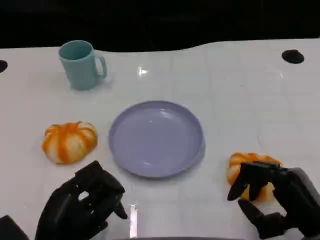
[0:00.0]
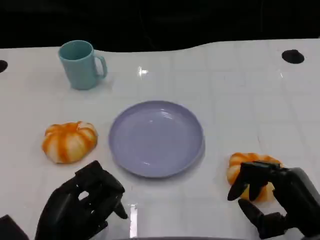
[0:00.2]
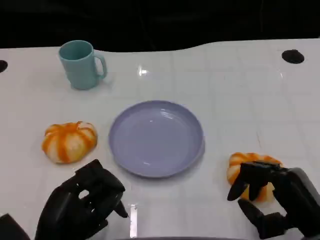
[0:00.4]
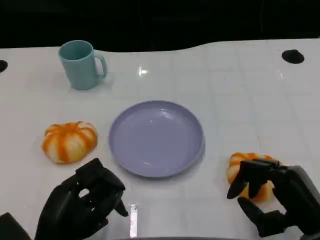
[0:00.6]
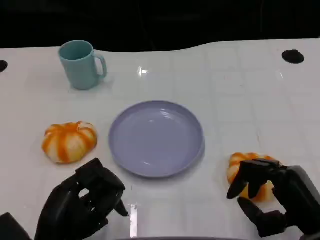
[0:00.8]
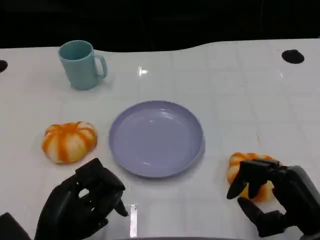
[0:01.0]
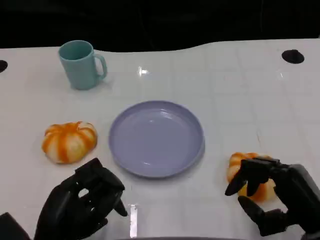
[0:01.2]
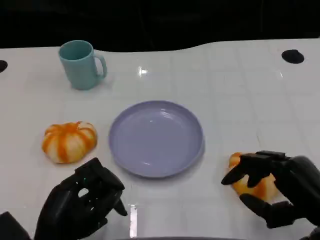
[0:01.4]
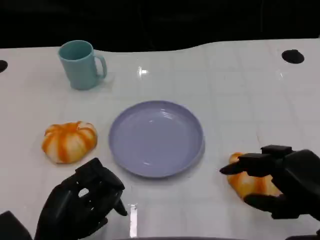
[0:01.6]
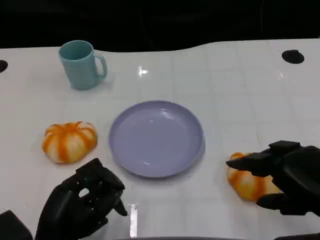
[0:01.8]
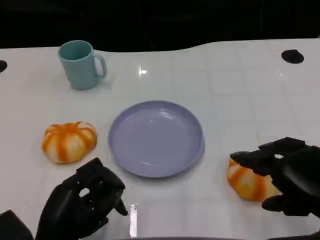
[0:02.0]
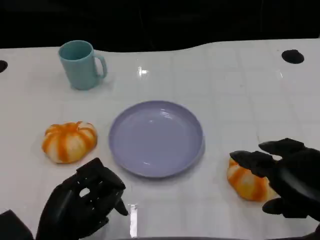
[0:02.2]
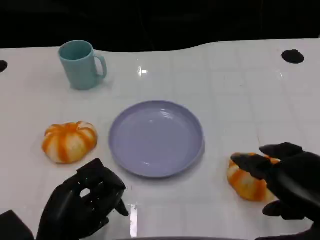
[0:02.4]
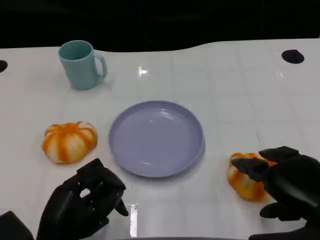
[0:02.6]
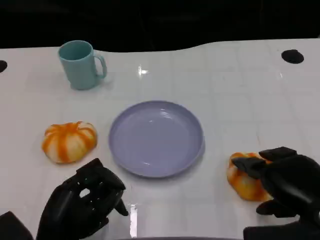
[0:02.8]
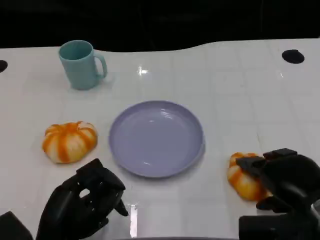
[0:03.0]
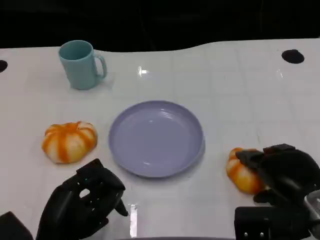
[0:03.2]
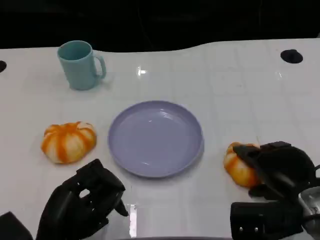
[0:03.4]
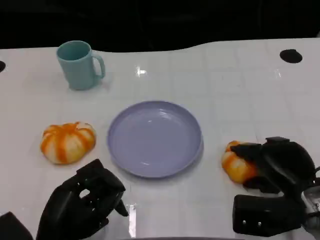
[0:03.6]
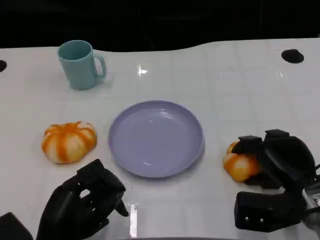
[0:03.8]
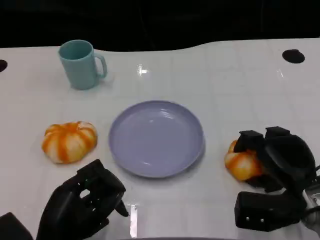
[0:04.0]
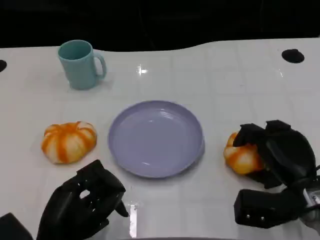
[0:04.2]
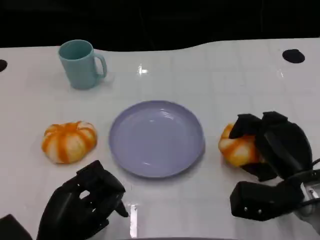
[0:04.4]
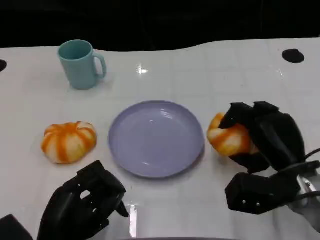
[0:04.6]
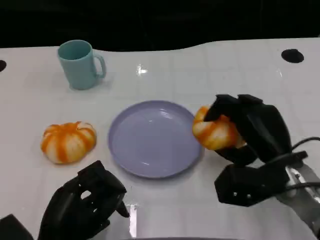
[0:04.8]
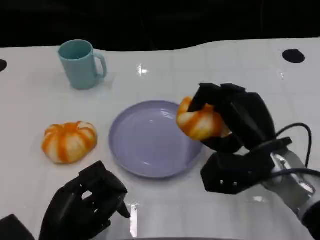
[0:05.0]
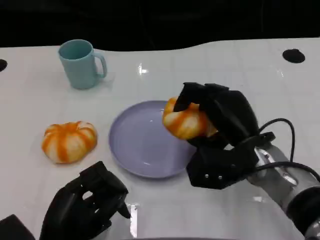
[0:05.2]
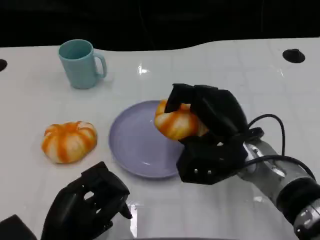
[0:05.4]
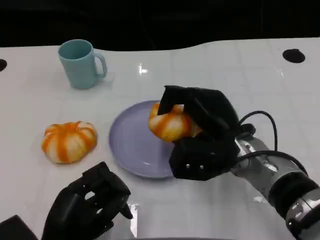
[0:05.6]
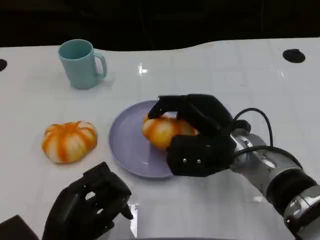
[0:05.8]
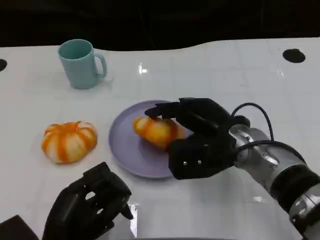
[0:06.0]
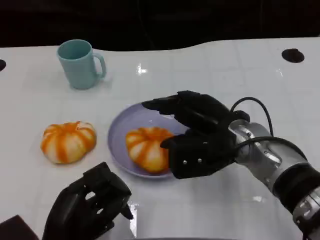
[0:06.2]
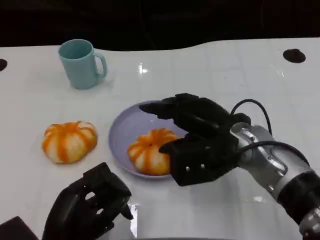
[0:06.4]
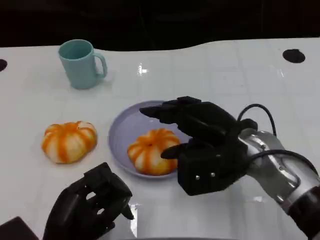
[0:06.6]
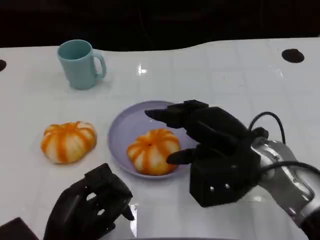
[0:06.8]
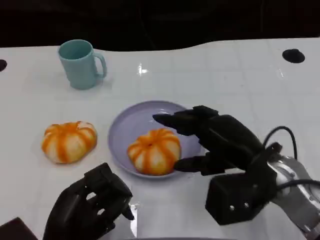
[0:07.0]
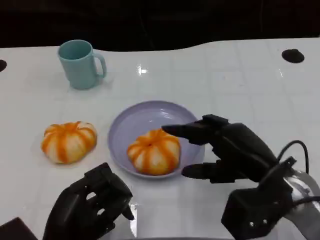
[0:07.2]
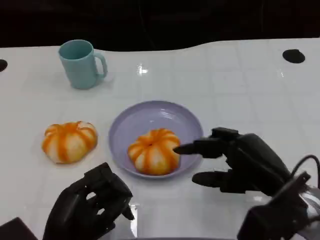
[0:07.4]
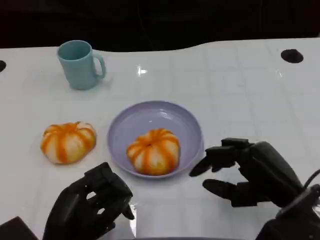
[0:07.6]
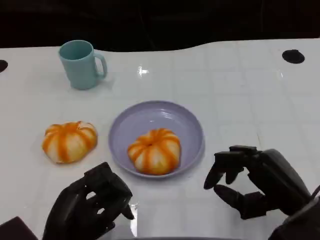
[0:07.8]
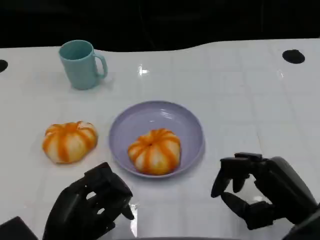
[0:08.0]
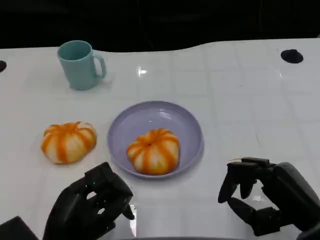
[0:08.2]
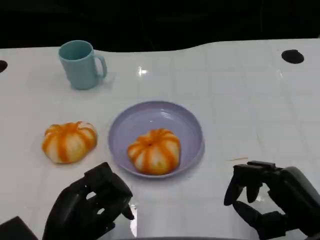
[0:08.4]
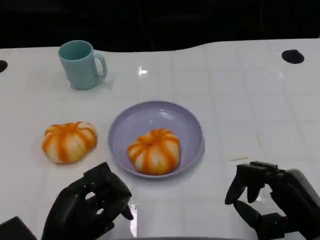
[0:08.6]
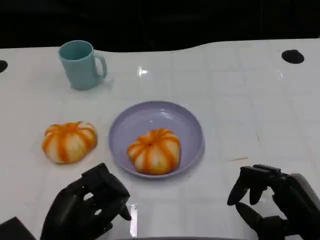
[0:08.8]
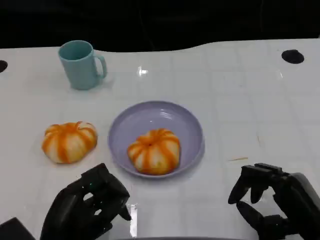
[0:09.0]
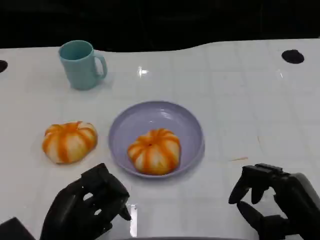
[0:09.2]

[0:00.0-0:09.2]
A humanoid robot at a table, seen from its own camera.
Task of the whole recording: Grasp the bread from the table and place it into the plate.
0:00.0 to 0:01.6: The right hand goes some 5 cm upward.
0:01.6 to 0:03.0: The right hand changes place by roughly 5 cm.
0:03.0 to 0:04.6: The right hand moves forward, some 5 cm.
0:04.6 to 0:06.2: The right hand moves to the left and upward, roughly 10 cm.
0:06.2 to 0:07.6: The right hand is displaced backward and to the right by approximately 15 cm.
0:07.6 to 0:09.2: The right hand shifts by some 5 cm.
